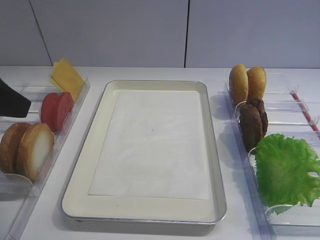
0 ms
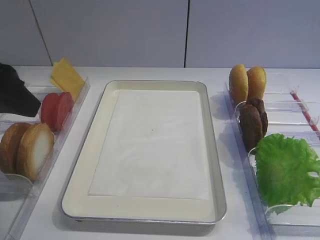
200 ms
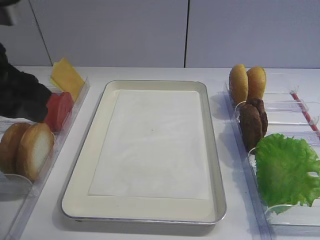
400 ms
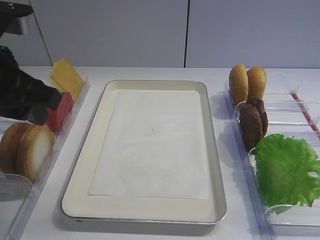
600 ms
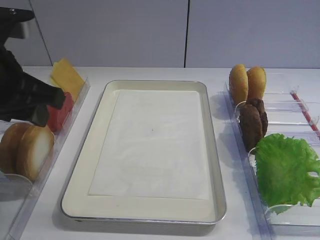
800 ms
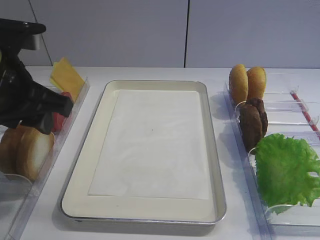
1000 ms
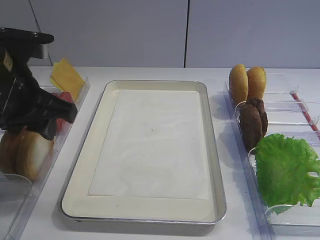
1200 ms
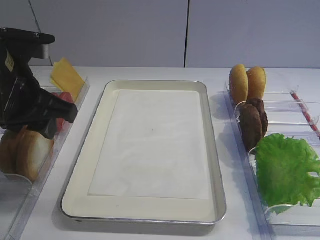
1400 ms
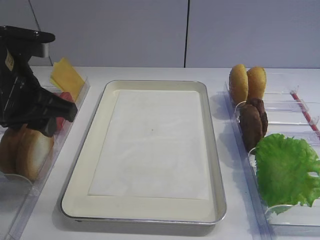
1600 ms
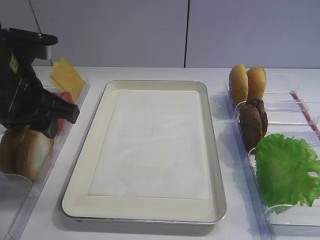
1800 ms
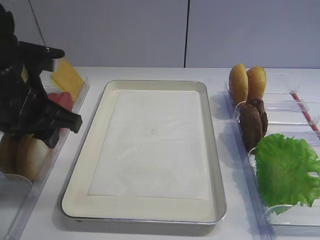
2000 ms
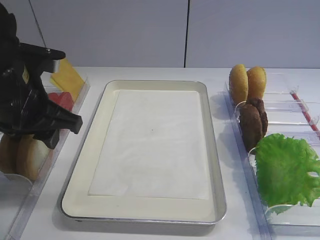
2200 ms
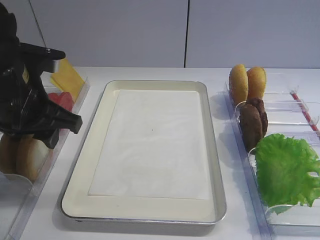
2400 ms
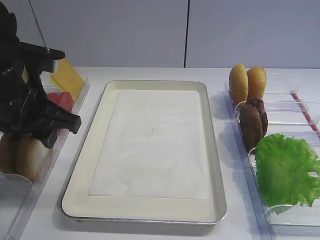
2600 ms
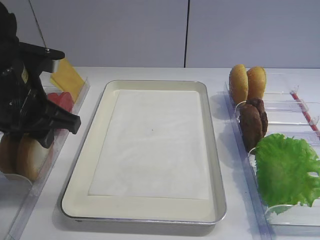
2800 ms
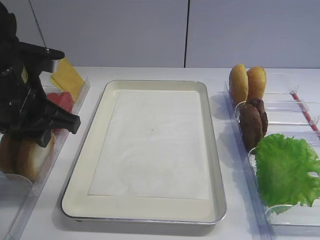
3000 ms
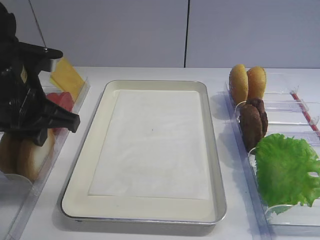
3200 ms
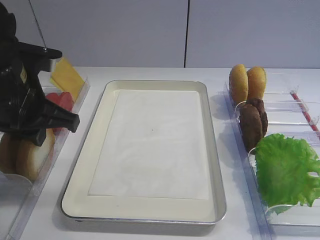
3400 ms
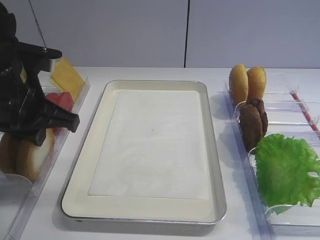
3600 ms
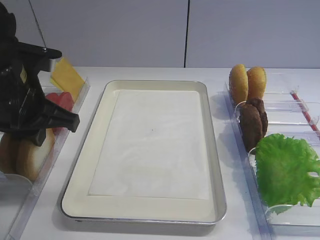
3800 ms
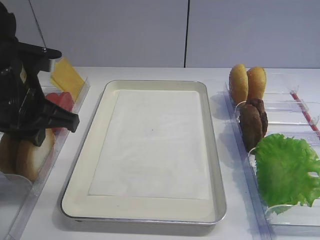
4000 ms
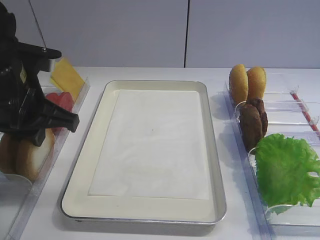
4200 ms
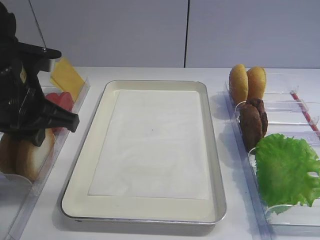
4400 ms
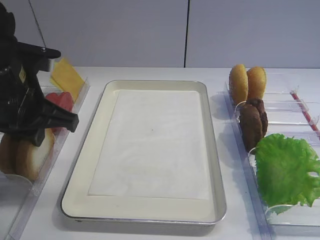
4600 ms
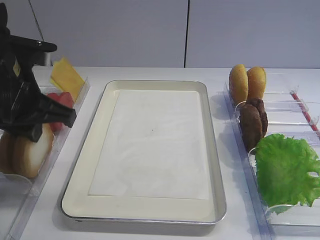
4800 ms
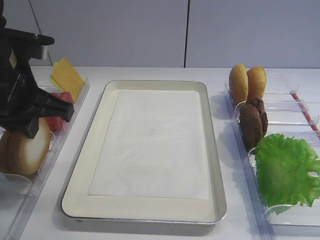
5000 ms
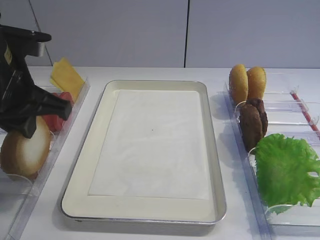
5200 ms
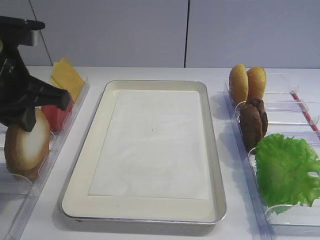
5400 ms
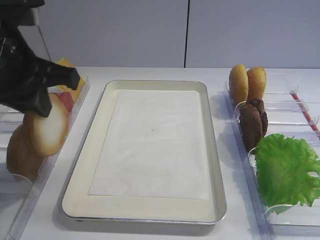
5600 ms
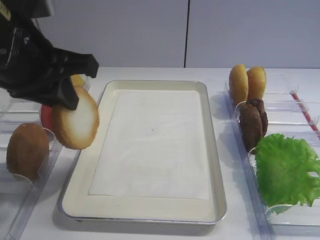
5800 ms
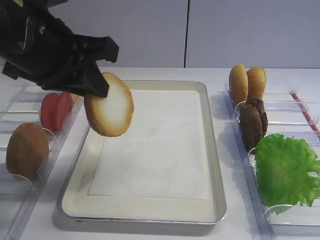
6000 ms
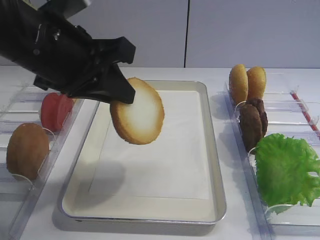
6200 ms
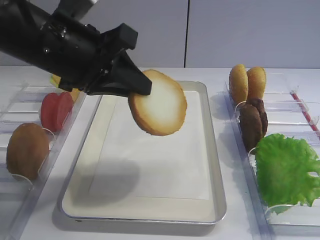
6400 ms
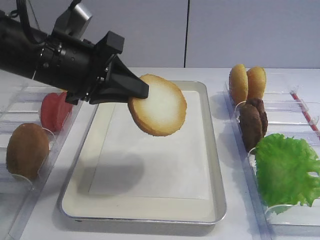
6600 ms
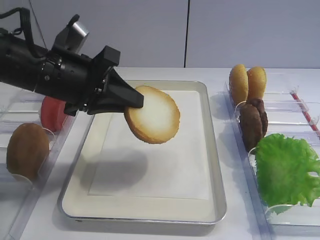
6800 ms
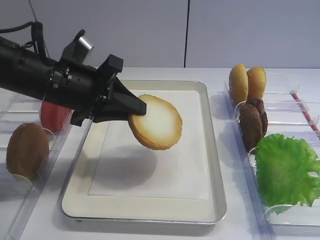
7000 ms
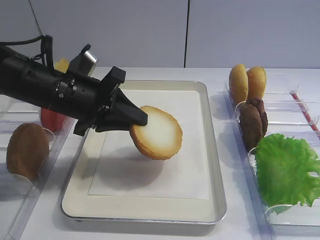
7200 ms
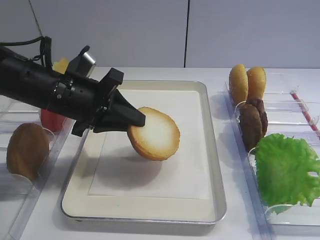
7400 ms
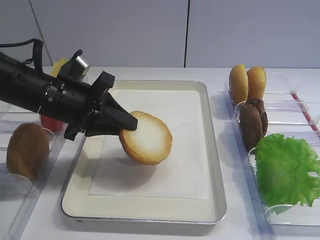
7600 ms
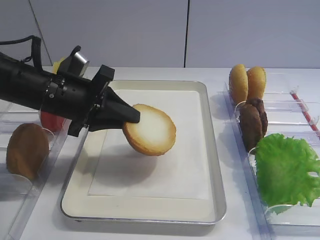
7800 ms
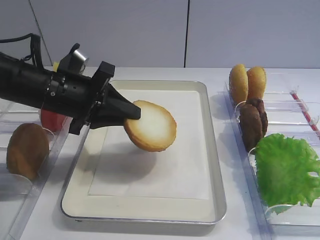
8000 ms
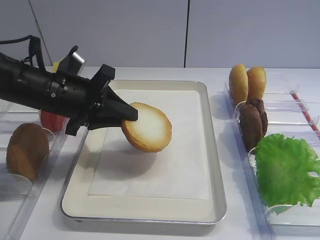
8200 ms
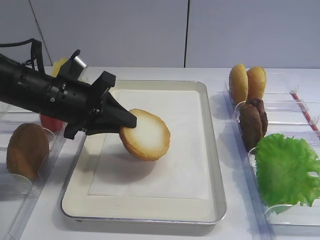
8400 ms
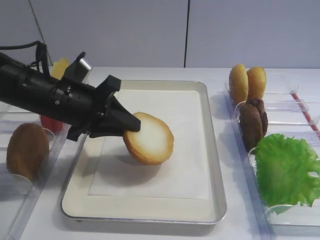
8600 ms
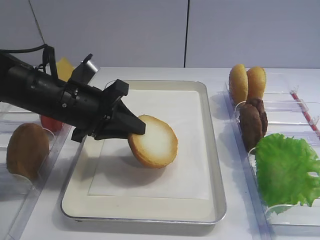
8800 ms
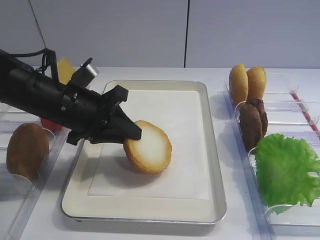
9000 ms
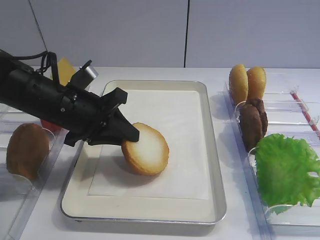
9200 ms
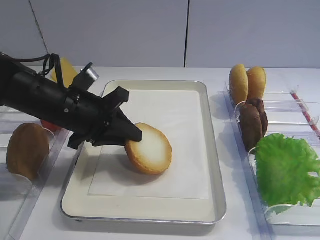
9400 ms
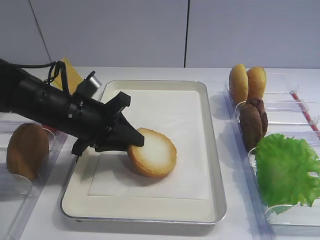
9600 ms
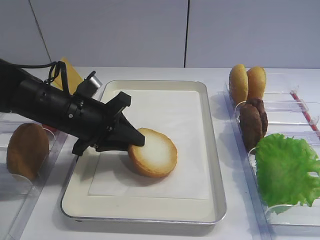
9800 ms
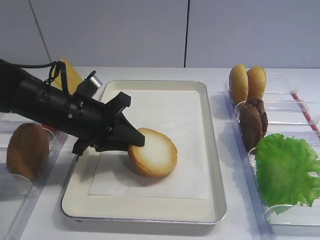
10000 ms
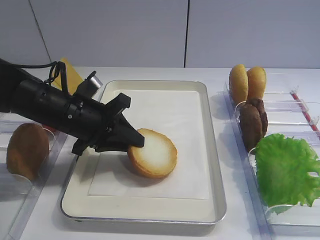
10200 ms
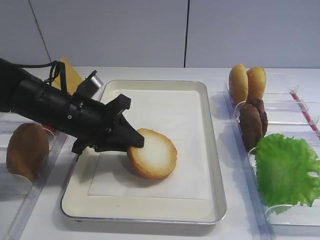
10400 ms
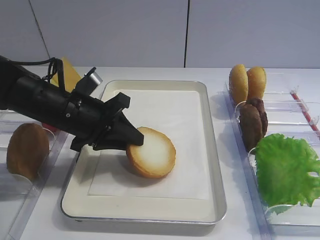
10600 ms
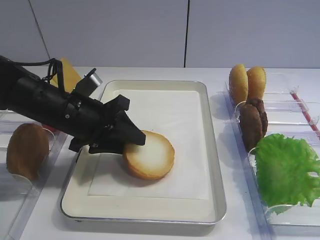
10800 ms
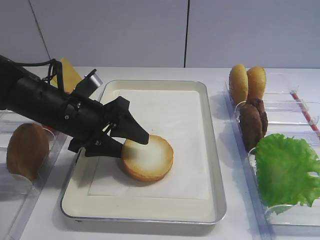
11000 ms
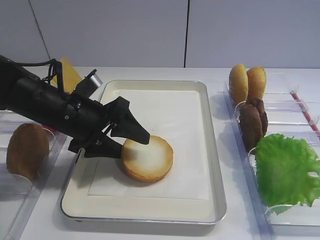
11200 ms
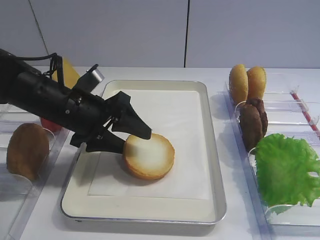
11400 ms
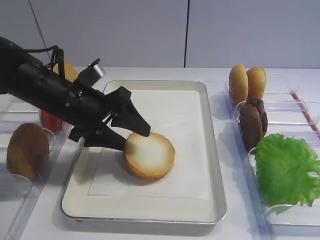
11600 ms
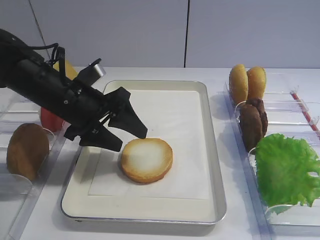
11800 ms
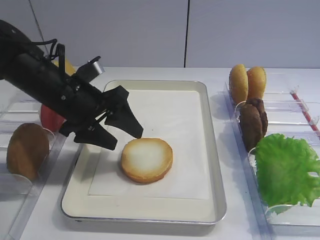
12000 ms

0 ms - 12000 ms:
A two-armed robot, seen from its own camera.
Step, 0 ms - 5400 ms: Pick up the bread slice with the left gripper.
0 ms - 1600 ms: The left gripper heads forward, downward and to the right, covering about 10 cm.
1600 ms - 3000 ms: The left gripper closes up.
3000 ms - 4400 ms: Both grippers stay put.
4400 ms - 6000 ms: The left gripper is displaced upward by roughly 5 cm.
6000 ms - 7600 ms: The left gripper travels downward and forward by some 15 cm.
7600 ms - 10400 ms: The grippers move only a little.
10400 ms - 12000 ms: The left gripper opens up.

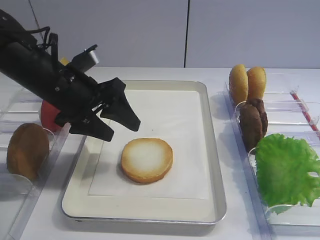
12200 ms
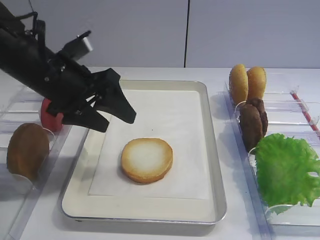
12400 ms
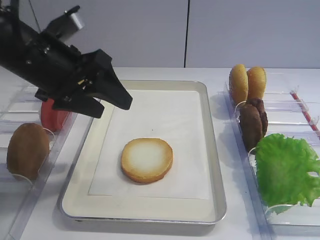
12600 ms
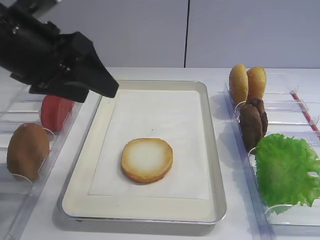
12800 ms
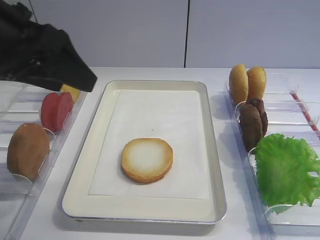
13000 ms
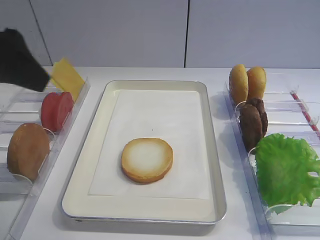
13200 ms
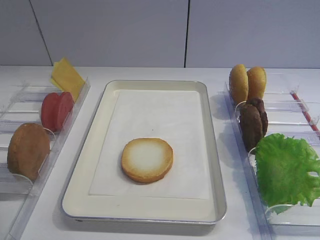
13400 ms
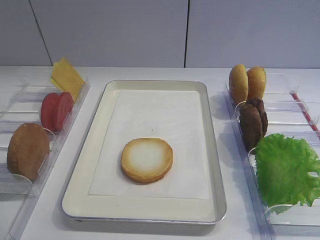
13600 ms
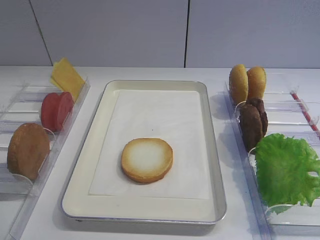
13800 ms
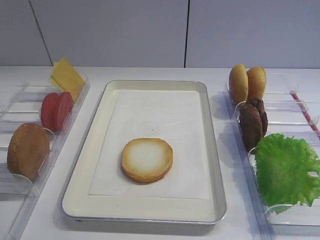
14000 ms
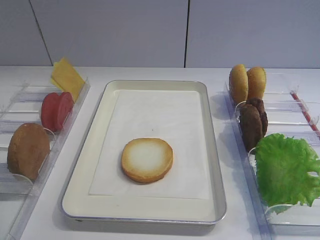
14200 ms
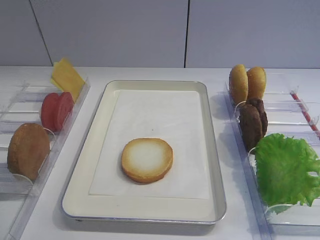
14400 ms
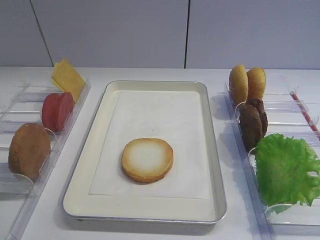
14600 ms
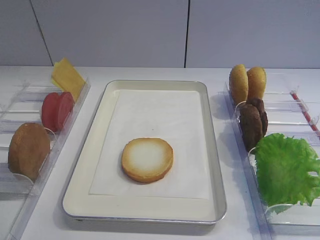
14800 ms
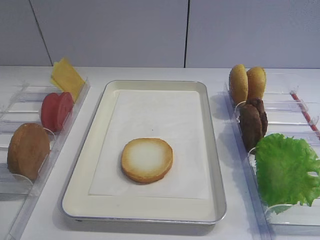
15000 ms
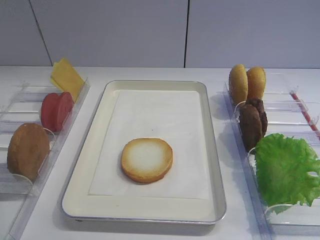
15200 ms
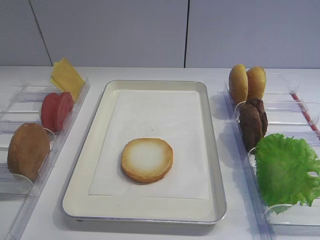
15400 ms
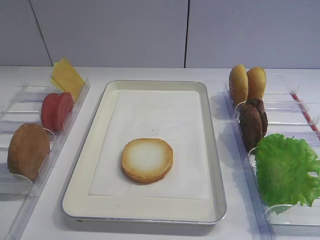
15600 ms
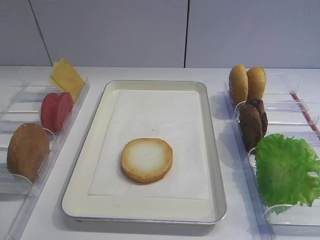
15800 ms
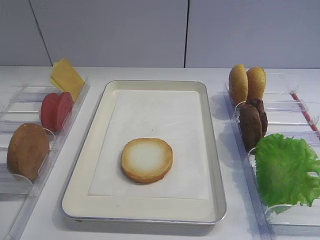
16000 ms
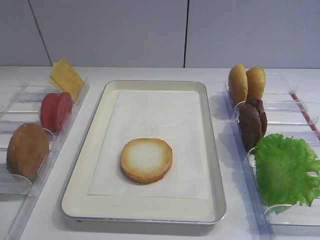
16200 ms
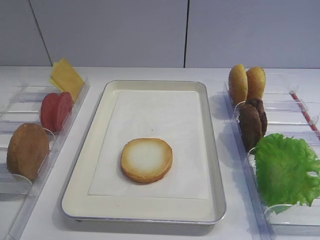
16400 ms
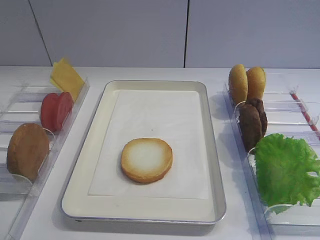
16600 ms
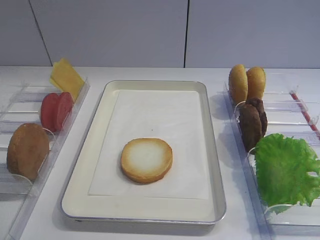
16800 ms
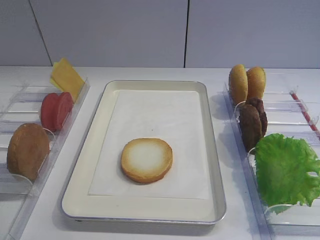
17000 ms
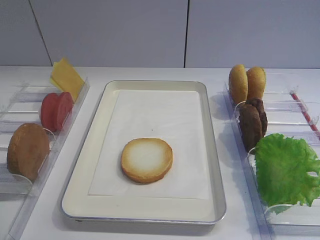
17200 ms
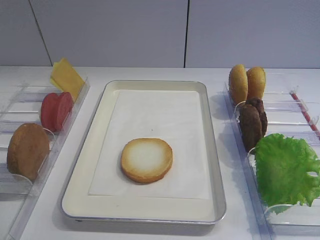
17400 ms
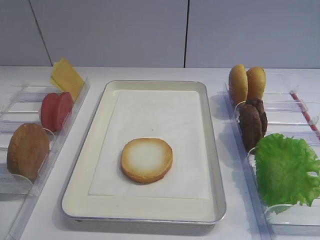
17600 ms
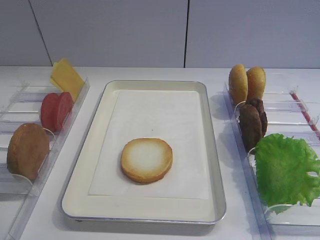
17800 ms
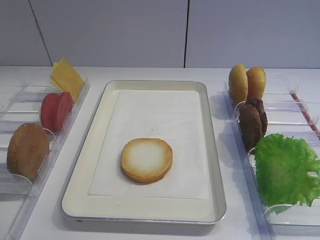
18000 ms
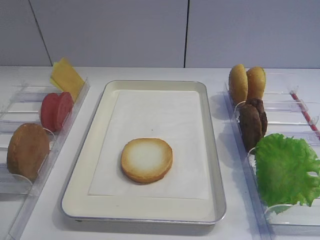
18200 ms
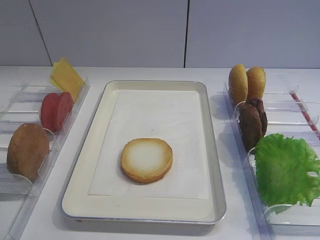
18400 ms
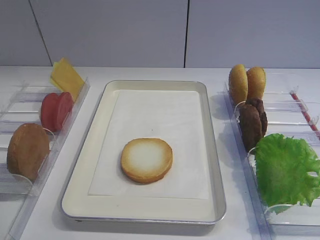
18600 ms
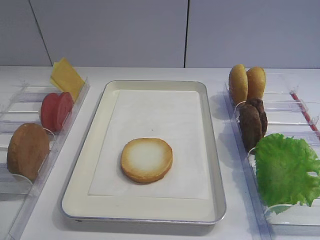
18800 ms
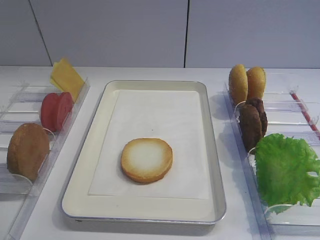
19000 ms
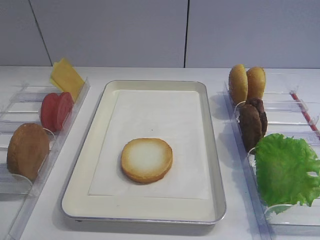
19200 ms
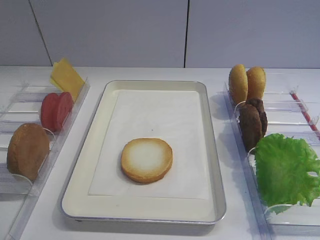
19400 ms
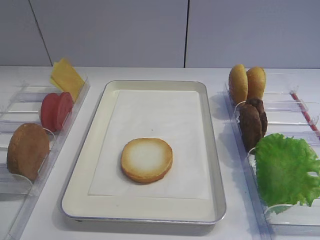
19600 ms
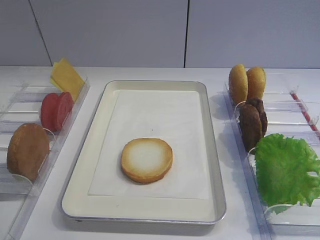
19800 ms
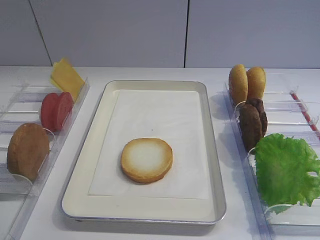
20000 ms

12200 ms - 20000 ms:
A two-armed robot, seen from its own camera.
12200 ms - 13800 ms: The left gripper heads backward, upward and to the left, covering approximately 25 cm.
16800 ms - 20000 ms: Neither gripper changes place.

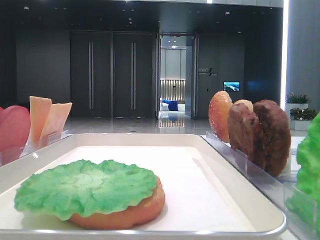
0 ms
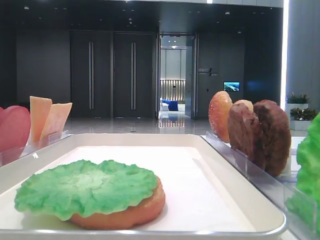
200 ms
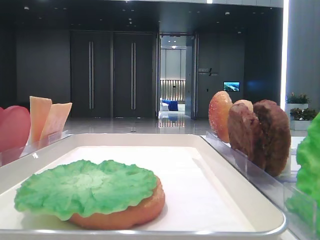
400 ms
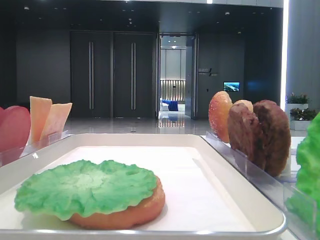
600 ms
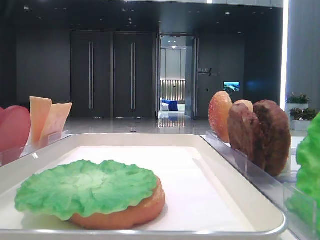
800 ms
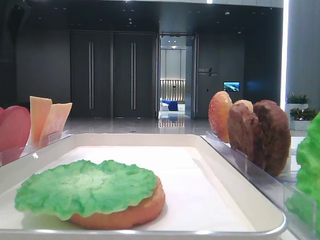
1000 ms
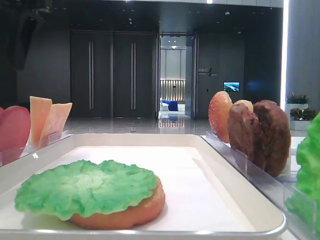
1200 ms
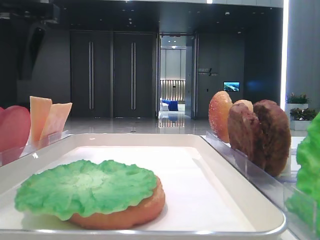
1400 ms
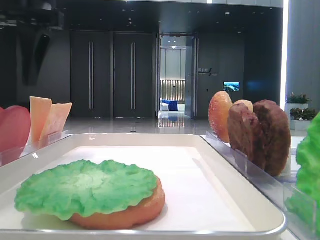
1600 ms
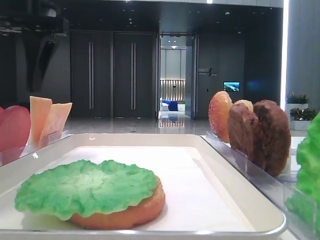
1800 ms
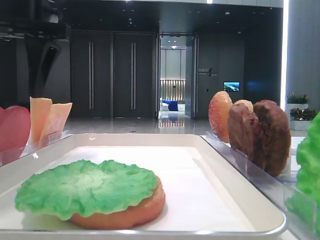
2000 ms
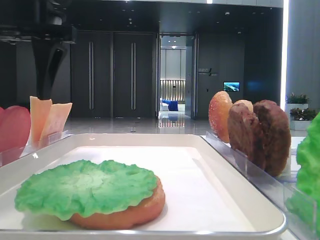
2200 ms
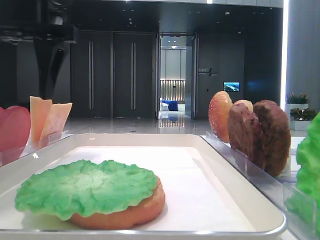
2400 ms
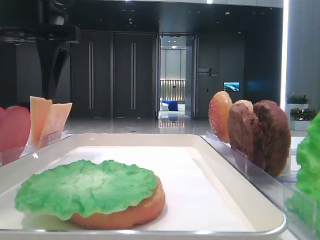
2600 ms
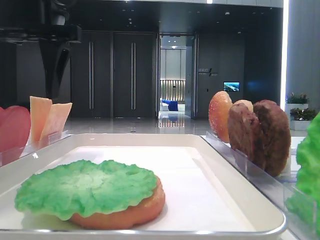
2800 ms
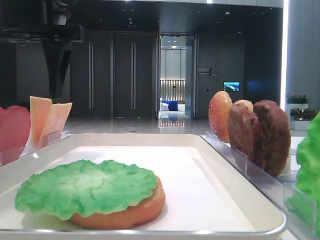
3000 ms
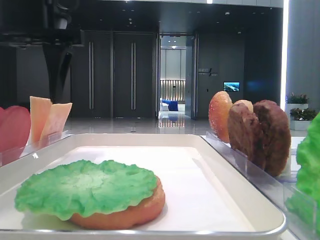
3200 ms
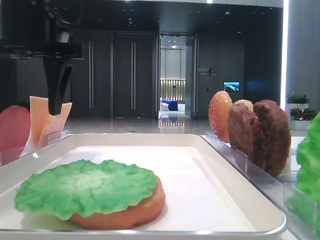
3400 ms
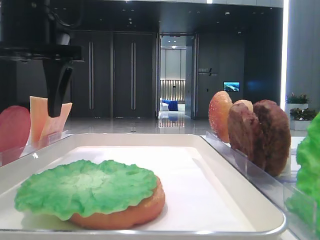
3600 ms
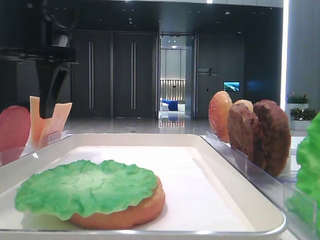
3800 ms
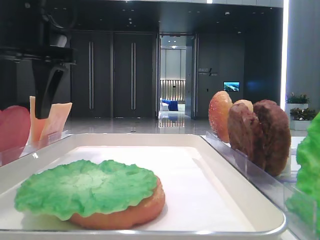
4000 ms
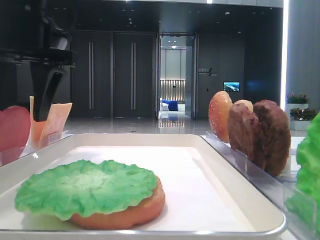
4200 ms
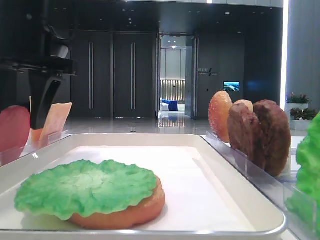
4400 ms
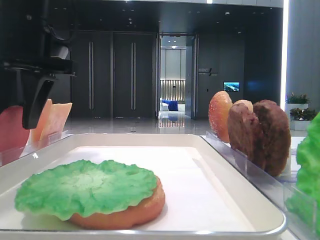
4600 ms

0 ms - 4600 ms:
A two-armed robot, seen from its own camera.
0 ms - 1600 ms: The left gripper goes approximately 15 cm to the right and downward.
1600 ms - 3000 ms: The grippers move only a little.
3000 ms - 4600 ms: The left gripper closes up.
